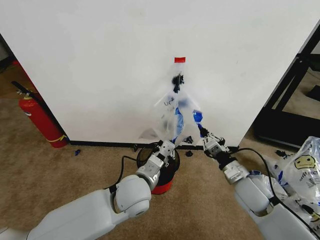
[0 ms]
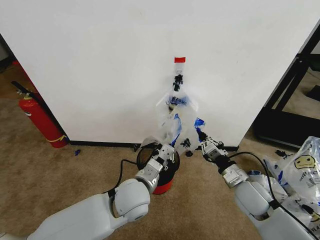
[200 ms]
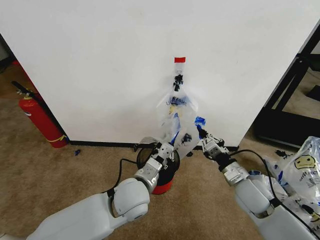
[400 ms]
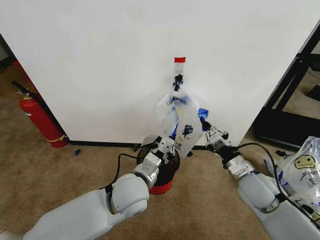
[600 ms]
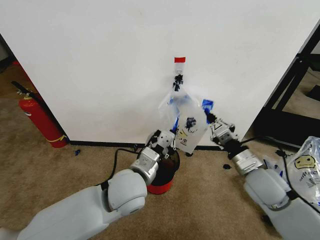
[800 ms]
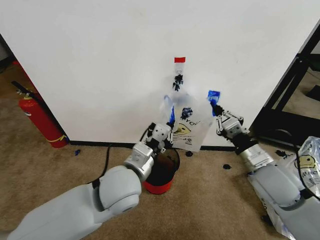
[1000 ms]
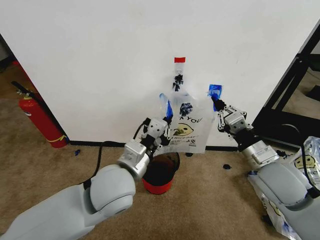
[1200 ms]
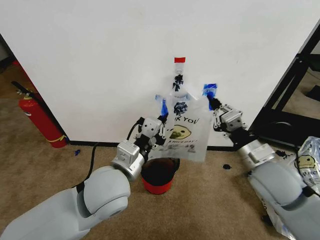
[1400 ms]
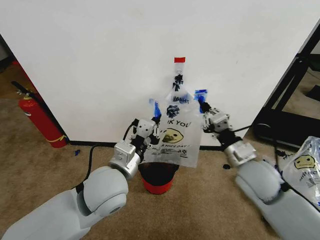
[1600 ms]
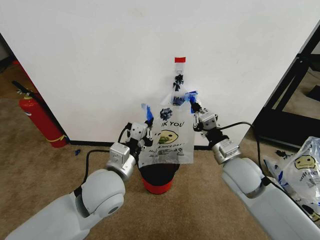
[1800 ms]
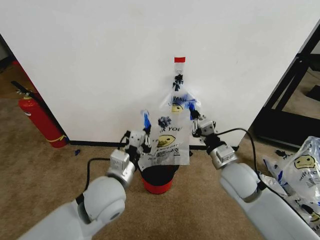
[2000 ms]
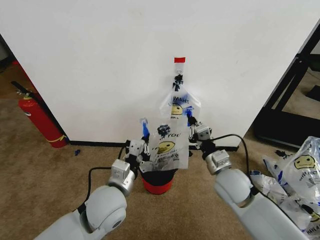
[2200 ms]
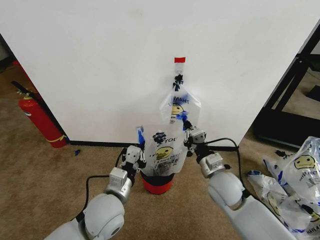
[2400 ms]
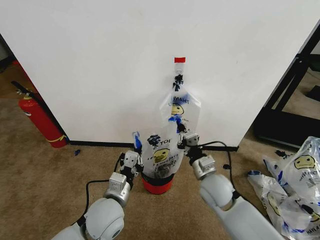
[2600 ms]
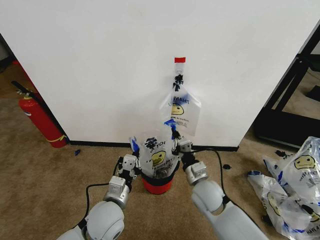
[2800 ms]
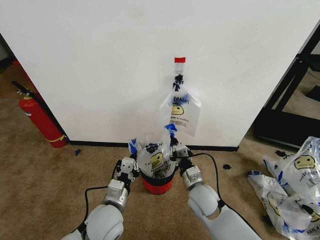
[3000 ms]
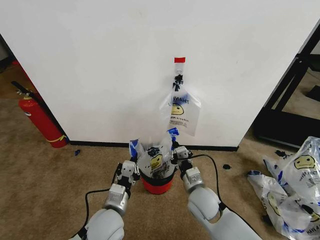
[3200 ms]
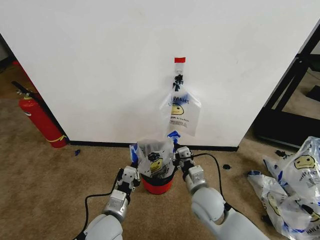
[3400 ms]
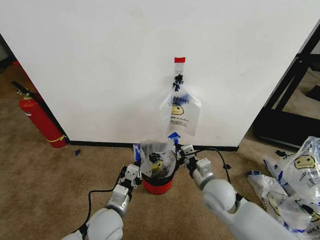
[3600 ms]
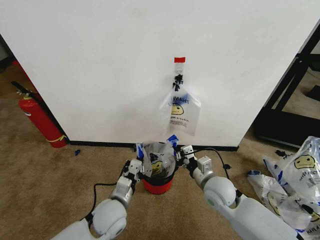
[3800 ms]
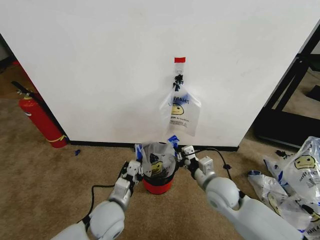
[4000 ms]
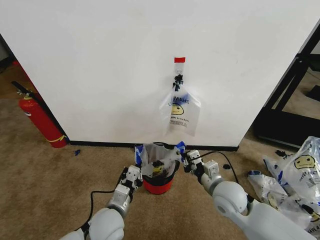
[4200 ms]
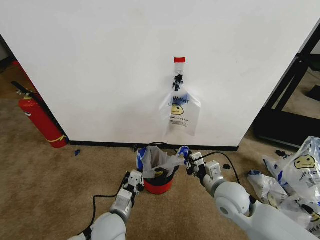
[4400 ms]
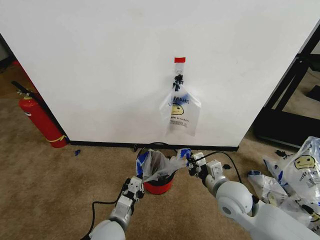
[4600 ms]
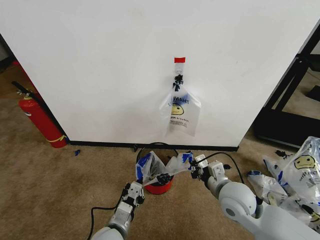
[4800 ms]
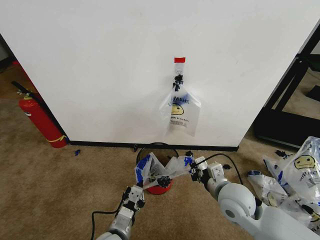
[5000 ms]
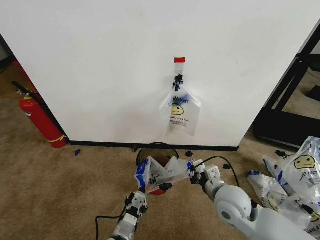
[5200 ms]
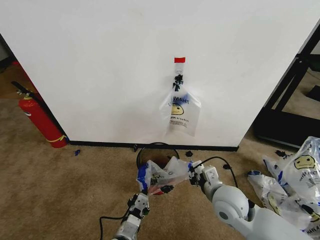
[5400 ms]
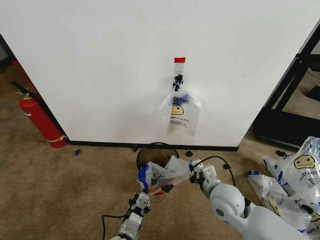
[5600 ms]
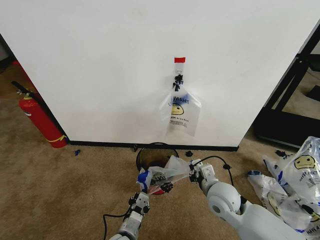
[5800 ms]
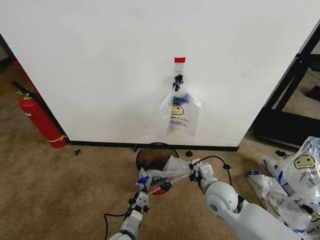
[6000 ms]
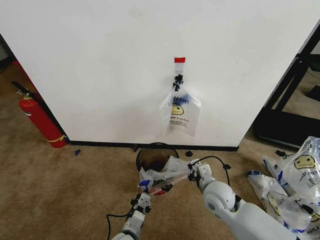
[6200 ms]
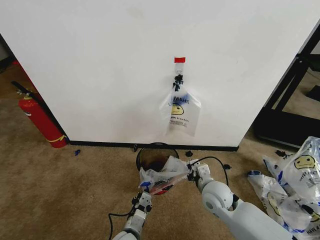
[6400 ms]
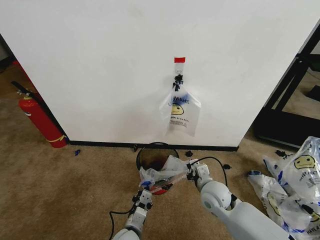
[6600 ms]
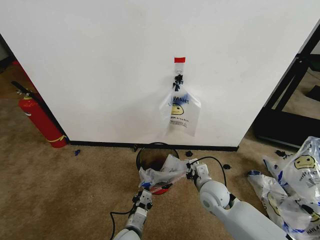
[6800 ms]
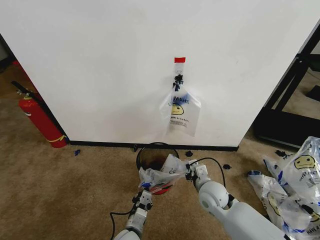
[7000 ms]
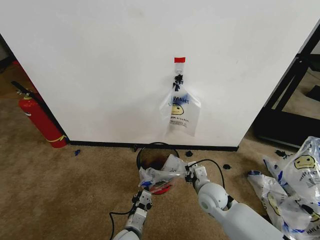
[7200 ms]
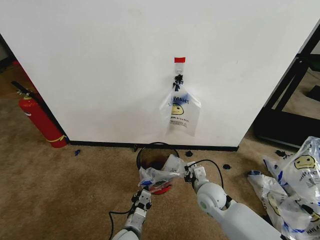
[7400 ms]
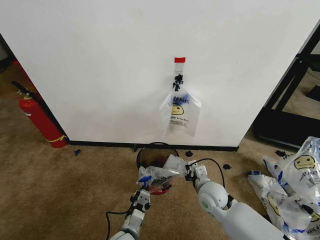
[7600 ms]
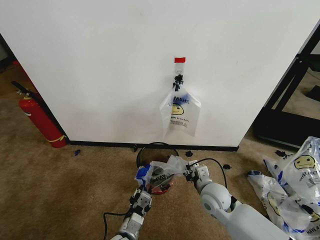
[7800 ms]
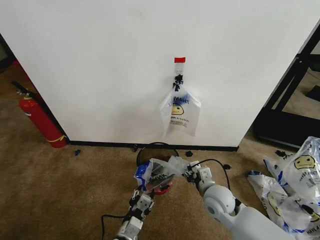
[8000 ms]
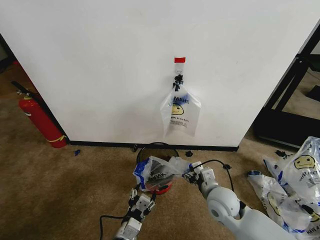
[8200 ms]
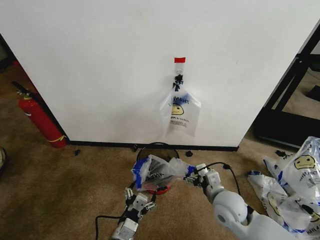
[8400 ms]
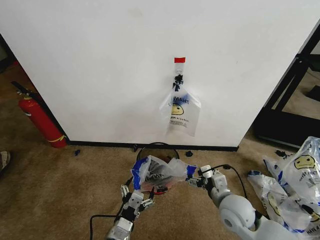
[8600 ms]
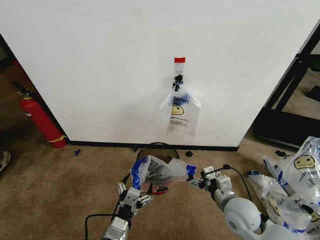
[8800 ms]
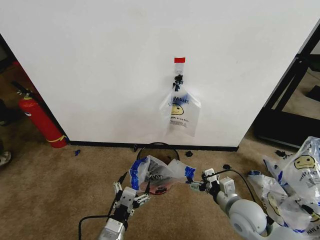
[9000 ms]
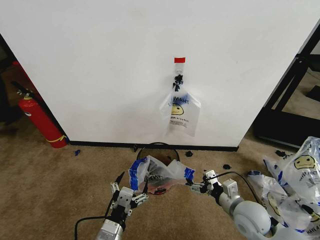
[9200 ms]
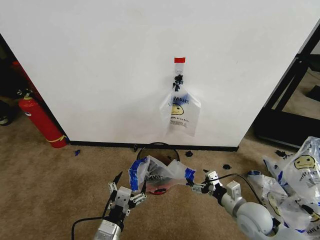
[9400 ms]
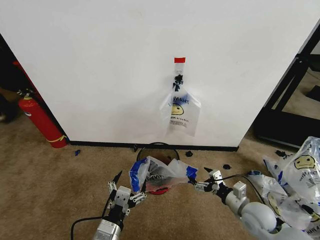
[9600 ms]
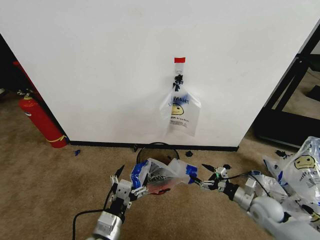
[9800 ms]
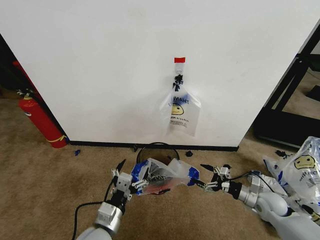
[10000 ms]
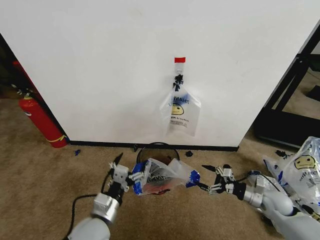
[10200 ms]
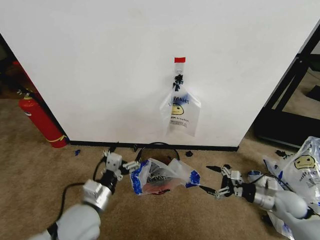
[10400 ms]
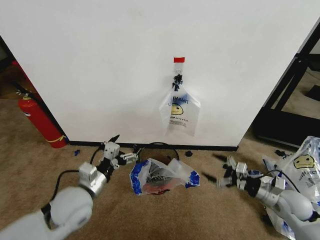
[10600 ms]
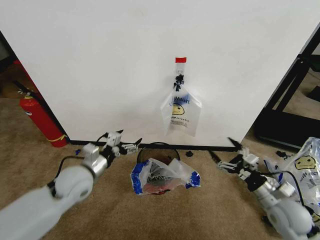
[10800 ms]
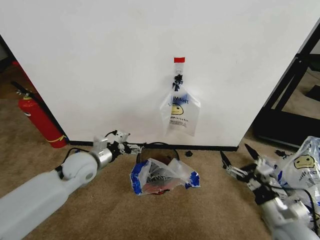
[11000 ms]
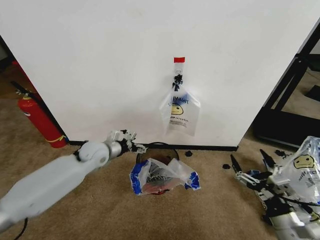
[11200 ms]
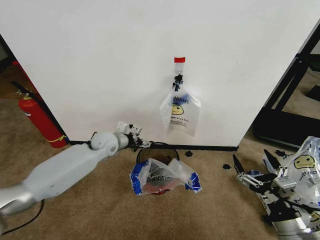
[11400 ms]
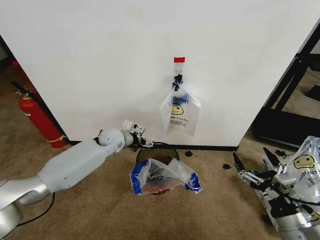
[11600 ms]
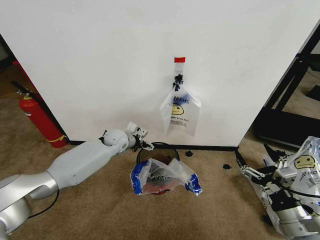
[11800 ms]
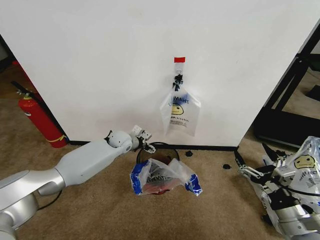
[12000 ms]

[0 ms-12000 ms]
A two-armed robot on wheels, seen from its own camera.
Task of the whole recording: Pick up the garbage bag from the wall and place it over the trash bin.
0 ms to 1600 ms: The left gripper moves upward and to the left, some 10 cm. Meanwhile the right gripper moves upward, about 10 cm.
1600 ms to 3000 ms: The right gripper heads downward and to the left, covering about 20 cm. The left gripper shifts about 15 cm downward.
3000 ms to 4400 ms: The right gripper goes approximately 10 cm to the right and upward.
4400 ms to 6000 ms: The left gripper shifts about 10 cm downward.
6000 ms to 7600 ms: The grippers move only a little.
7600 ms to 9000 ms: The left gripper heads upward, covering about 10 cm, and opens. The right gripper is displaced to the right and backward by some 10 cm, and opens up.
9000 ms to 10400 ms: The left gripper moves forward and upward, roughly 10 cm; the right gripper is displaced to the right by about 20 cm.
10400 ms to 12000 ms: The right gripper heads backward, upward and to the left, covering approximately 20 cm. Meanwhile the left gripper travels forward by about 30 cm.

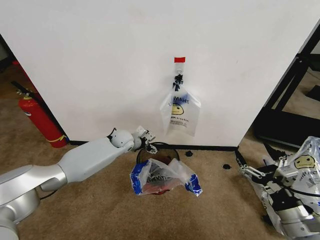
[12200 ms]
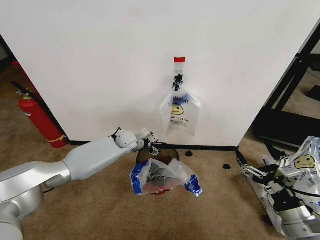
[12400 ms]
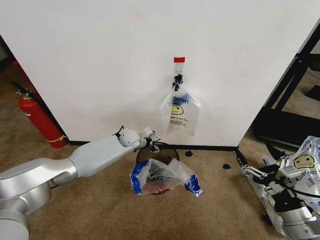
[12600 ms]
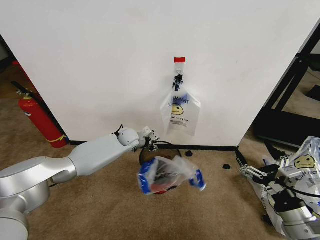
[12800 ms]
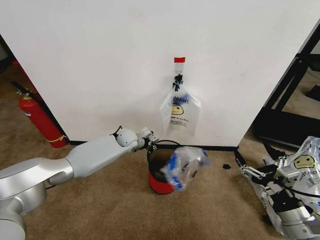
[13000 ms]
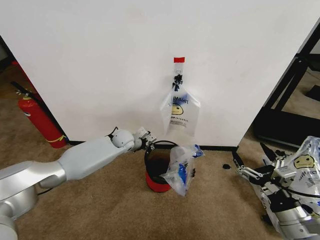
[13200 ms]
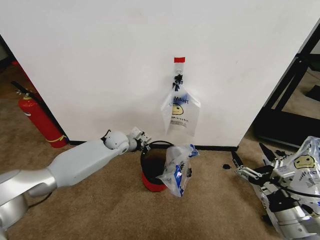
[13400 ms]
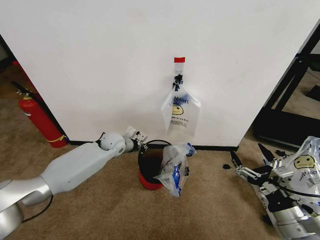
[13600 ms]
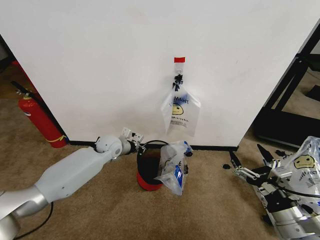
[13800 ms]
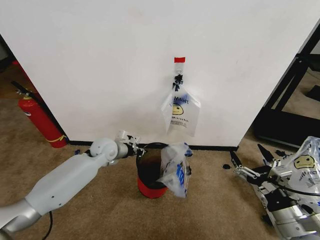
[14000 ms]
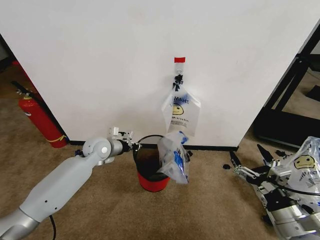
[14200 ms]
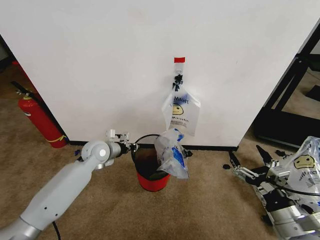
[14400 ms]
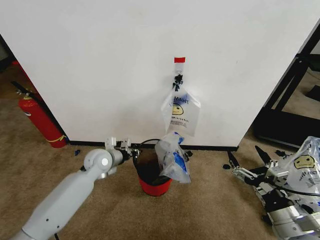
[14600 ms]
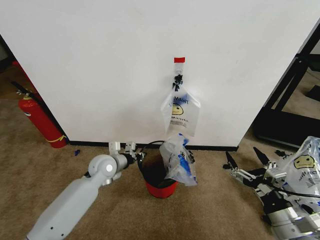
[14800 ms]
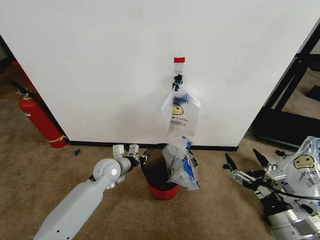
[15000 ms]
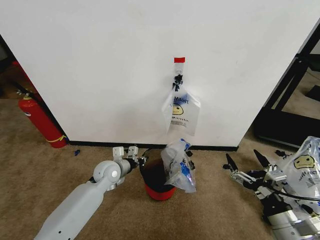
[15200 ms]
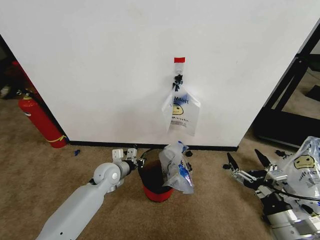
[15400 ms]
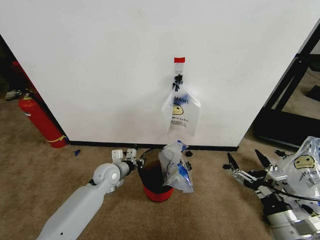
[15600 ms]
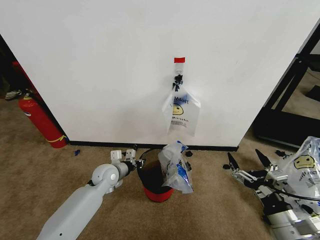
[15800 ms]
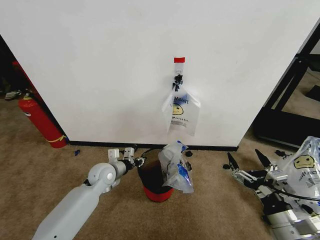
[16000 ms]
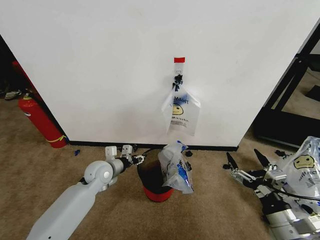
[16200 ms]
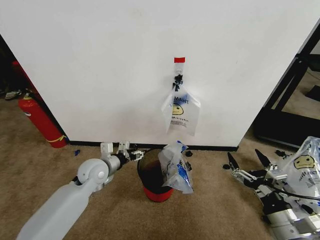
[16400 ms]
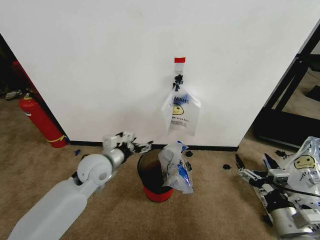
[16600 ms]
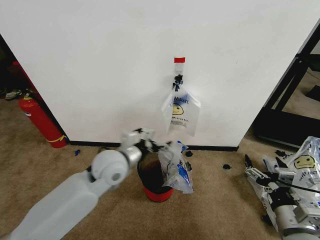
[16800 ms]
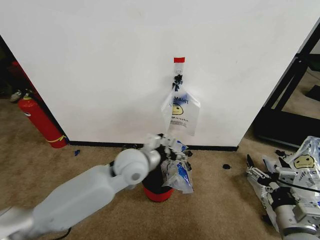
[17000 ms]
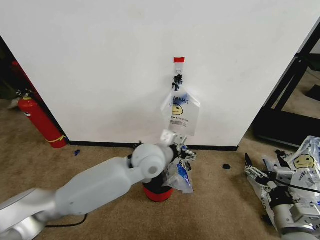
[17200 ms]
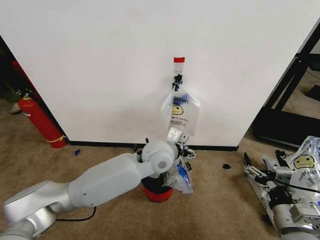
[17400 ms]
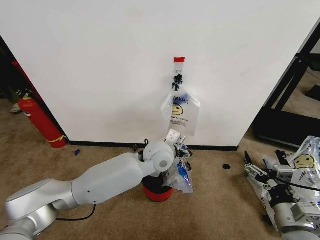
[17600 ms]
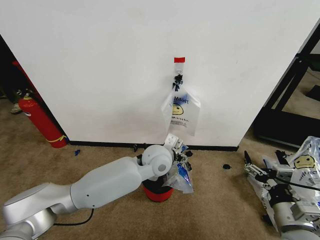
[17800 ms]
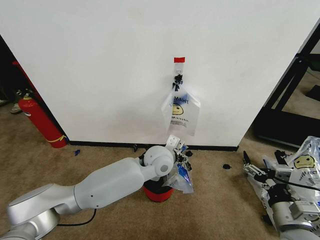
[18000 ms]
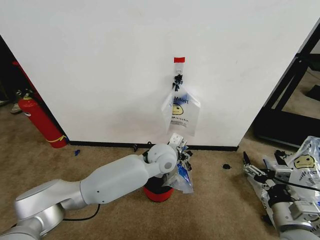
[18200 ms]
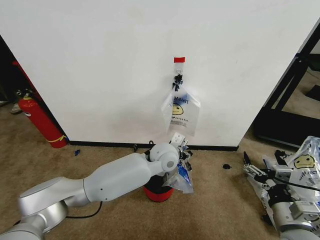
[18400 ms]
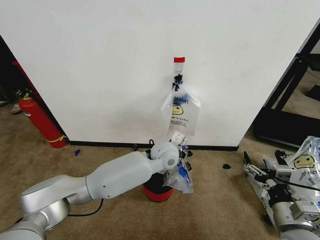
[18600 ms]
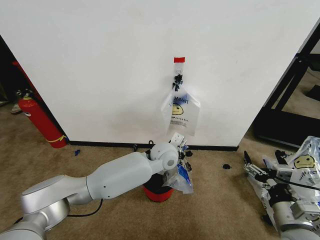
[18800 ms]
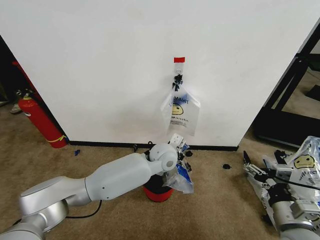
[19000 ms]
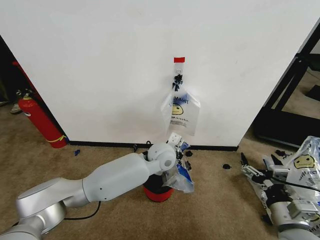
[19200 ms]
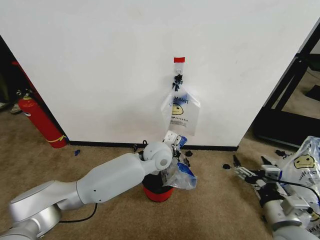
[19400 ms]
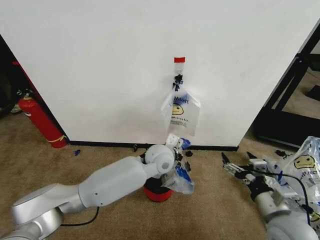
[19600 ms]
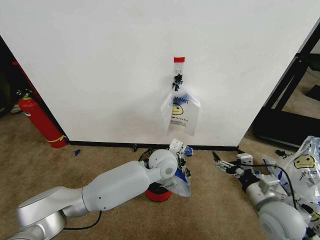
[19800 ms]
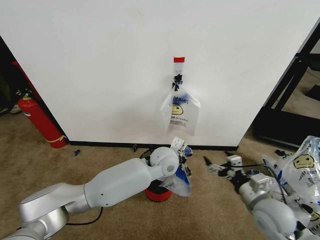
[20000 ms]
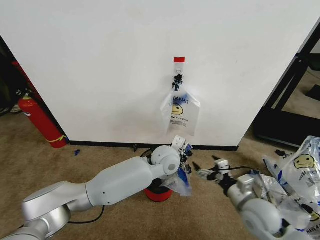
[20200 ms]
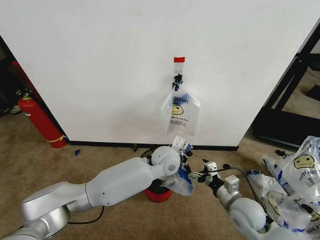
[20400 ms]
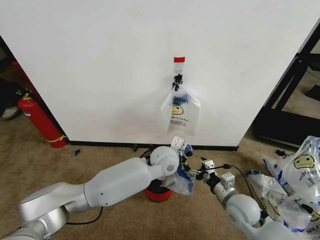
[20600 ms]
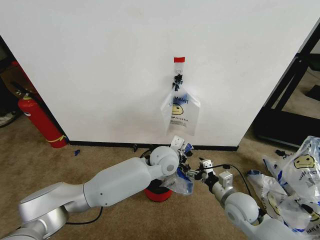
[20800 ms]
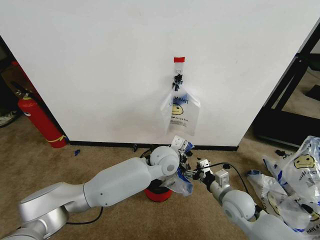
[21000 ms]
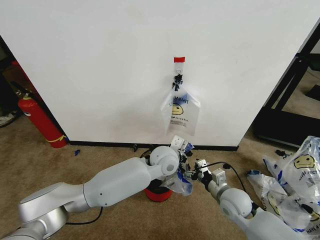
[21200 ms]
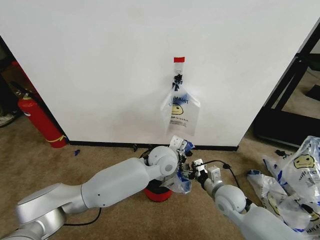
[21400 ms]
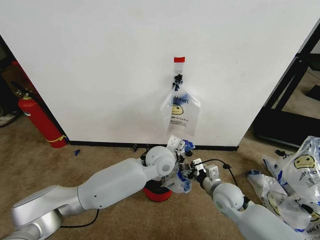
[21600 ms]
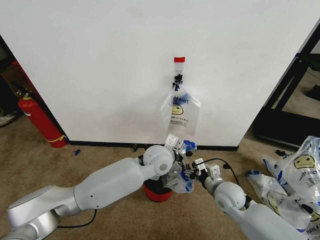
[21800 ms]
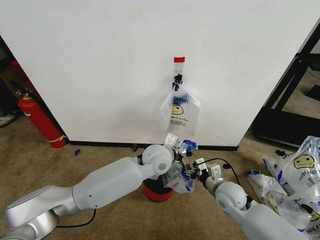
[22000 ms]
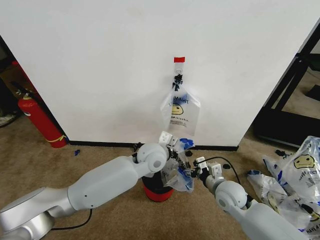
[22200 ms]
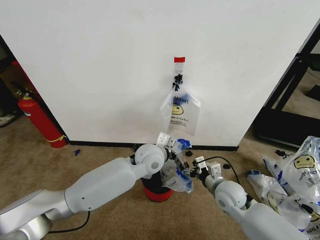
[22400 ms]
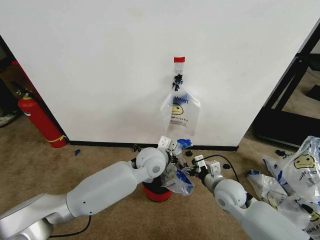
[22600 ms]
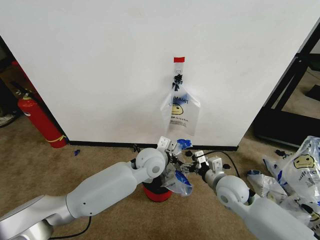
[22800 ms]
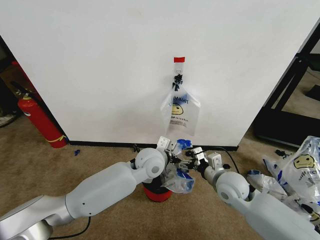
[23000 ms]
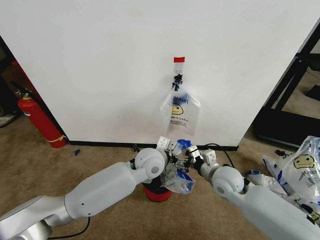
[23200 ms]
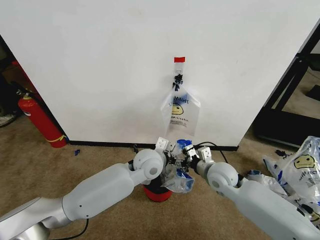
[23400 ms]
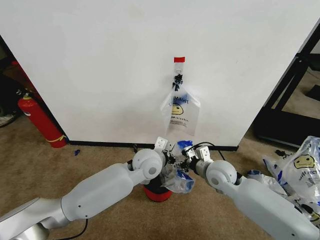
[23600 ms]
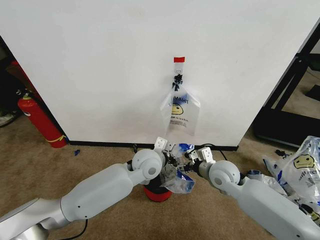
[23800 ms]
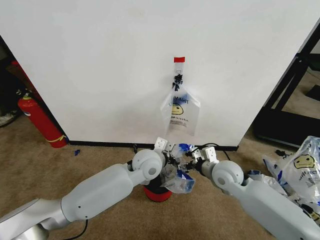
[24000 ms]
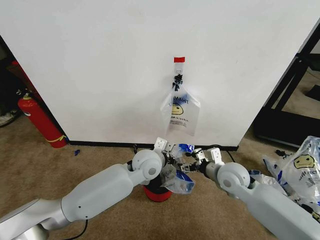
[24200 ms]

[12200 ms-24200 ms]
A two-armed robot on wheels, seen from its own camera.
Task of the whole recording: Pick up the garbage bag from the wall and place it over the trash bin.
12200 ms to 13800 ms: The left gripper moves approximately 5 cm, and closes.
13800 ms to 15200 ms: The left gripper shifts about 10 cm backward.
15200 ms to 16600 ms: The left gripper moves upward, roughly 10 cm, and opens up.
16600 ms to 18200 ms: The left gripper shifts roughly 20 cm to the right.
18200 ms to 19800 ms: The right gripper goes approximately 5 cm forward, while the left gripper closes its fingers.
19800 ms to 21200 ms: The right gripper goes about 15 cm downward, forward and to the left.
21200 ms to 22600 ms: The grippers stay close to where they were, moving slightly.
22600 ms to 24200 ms: The right gripper goes approximately 5 cm upward.
